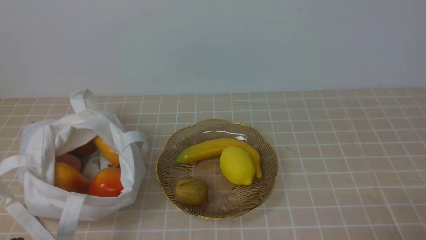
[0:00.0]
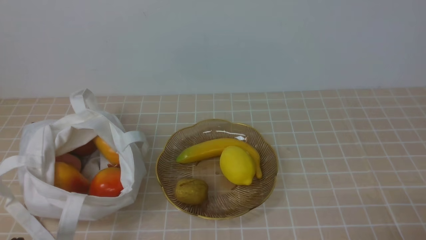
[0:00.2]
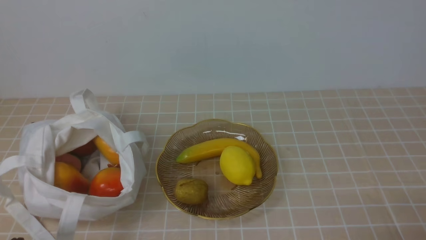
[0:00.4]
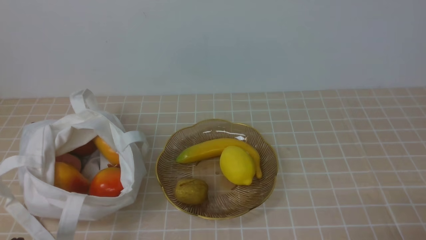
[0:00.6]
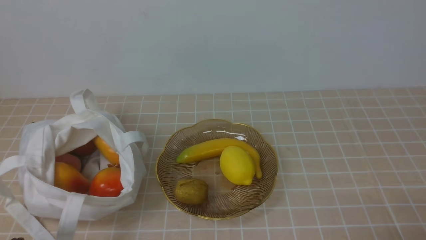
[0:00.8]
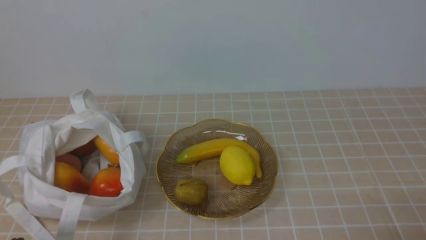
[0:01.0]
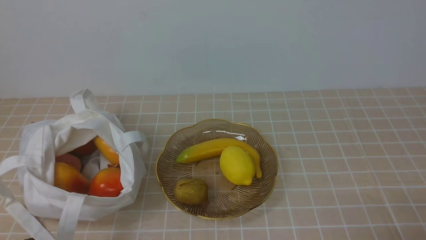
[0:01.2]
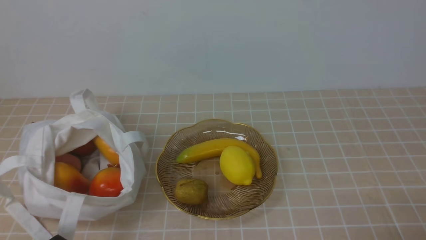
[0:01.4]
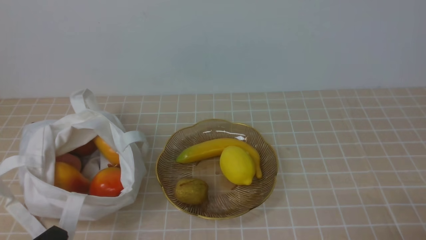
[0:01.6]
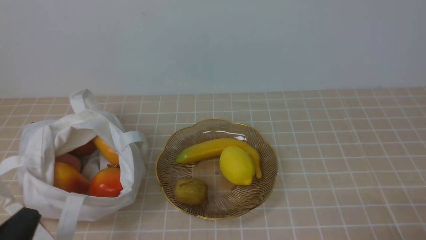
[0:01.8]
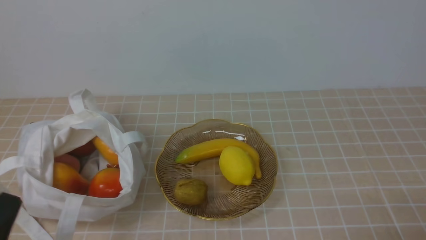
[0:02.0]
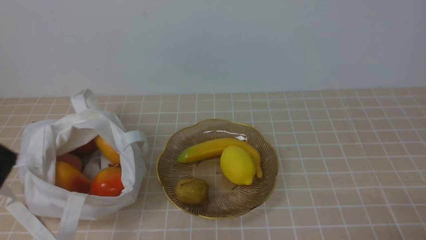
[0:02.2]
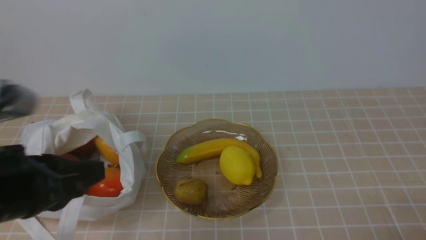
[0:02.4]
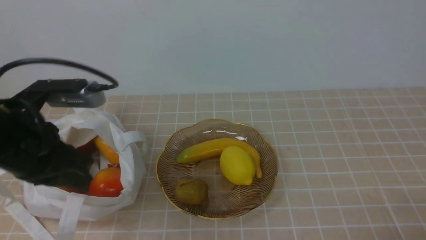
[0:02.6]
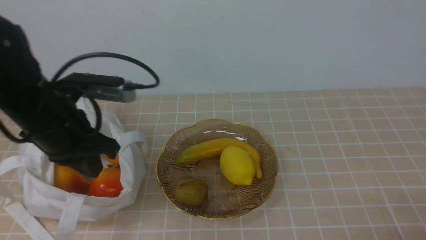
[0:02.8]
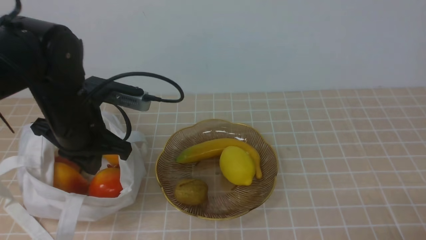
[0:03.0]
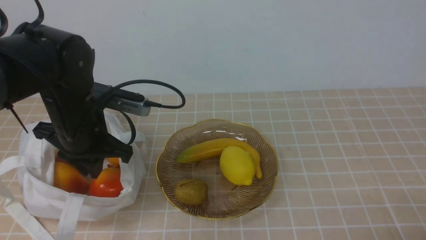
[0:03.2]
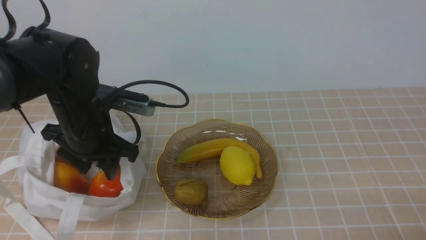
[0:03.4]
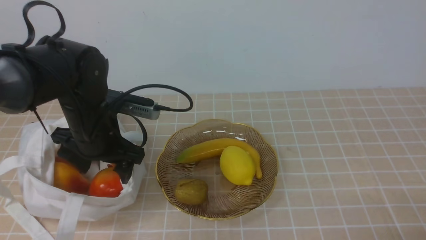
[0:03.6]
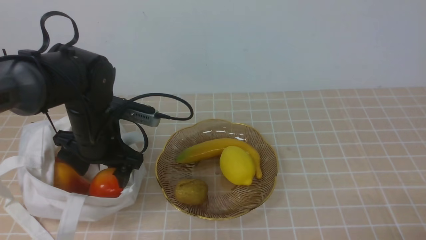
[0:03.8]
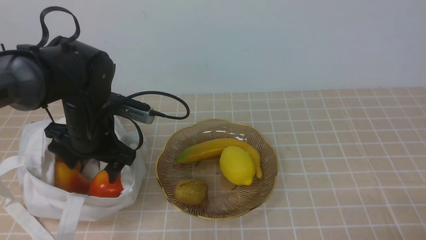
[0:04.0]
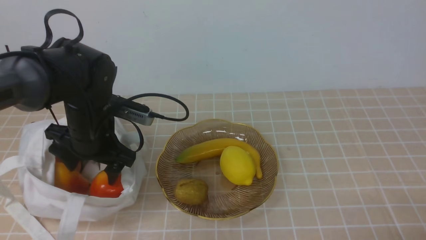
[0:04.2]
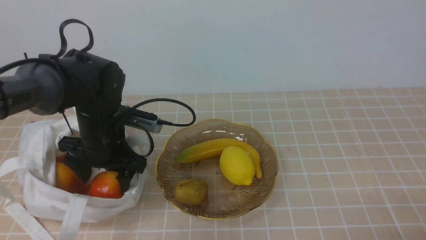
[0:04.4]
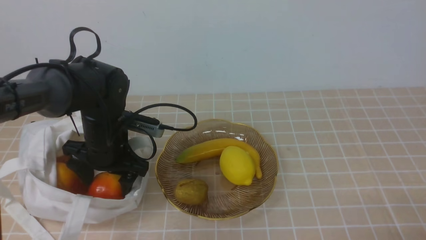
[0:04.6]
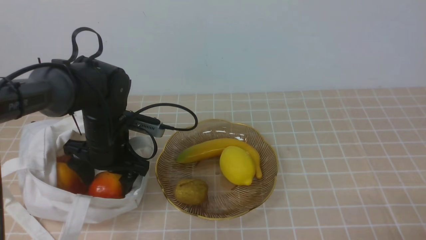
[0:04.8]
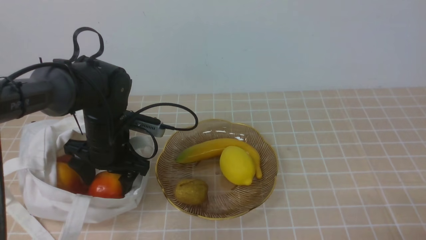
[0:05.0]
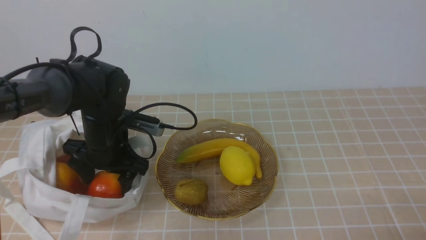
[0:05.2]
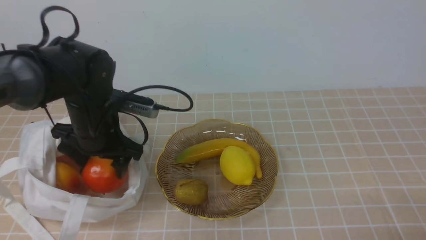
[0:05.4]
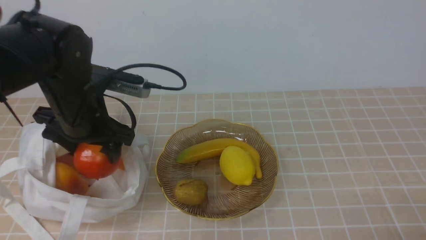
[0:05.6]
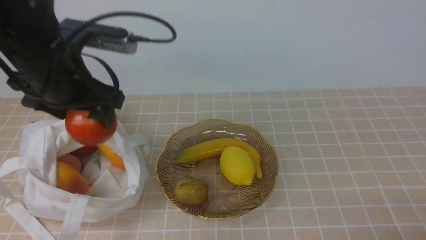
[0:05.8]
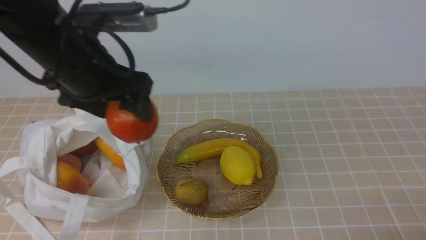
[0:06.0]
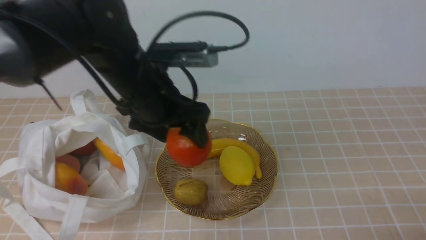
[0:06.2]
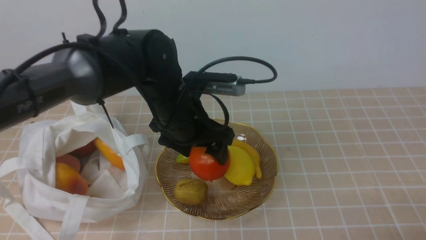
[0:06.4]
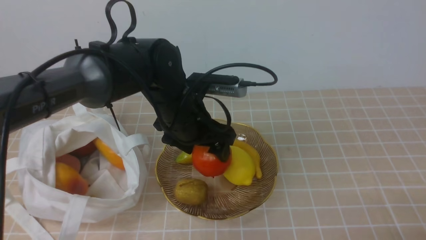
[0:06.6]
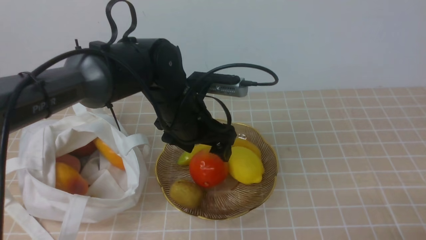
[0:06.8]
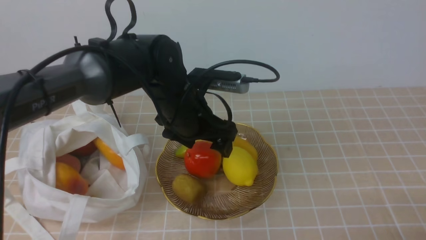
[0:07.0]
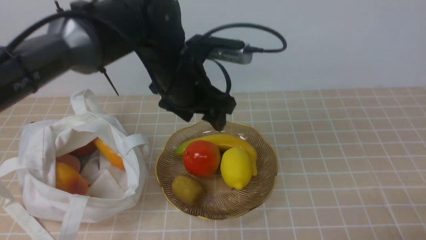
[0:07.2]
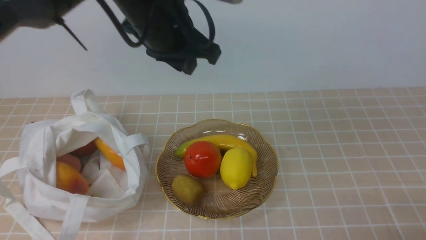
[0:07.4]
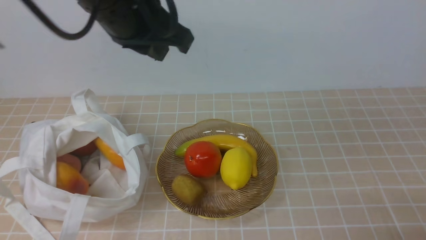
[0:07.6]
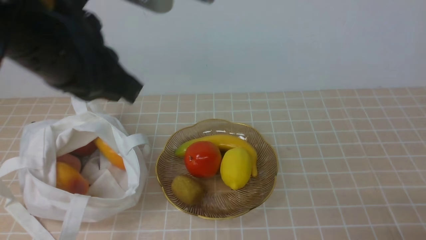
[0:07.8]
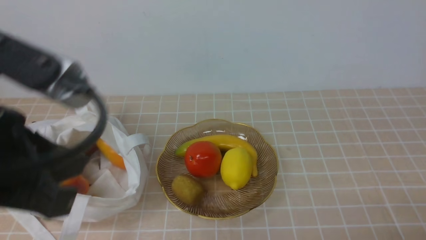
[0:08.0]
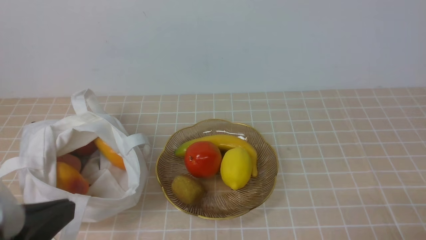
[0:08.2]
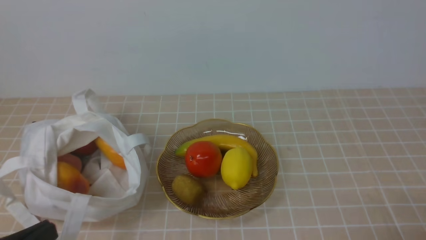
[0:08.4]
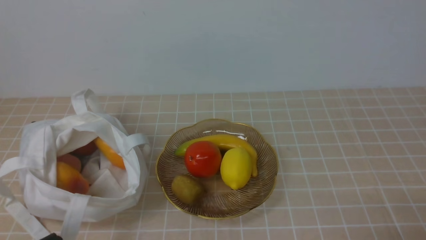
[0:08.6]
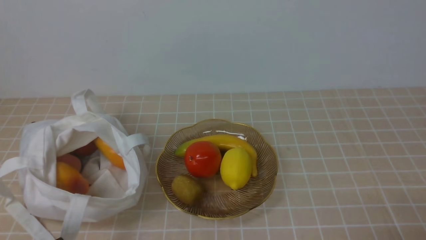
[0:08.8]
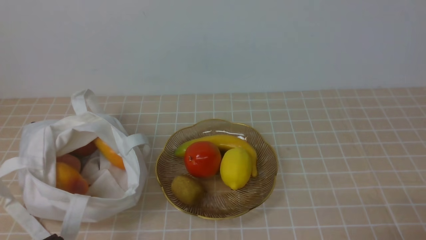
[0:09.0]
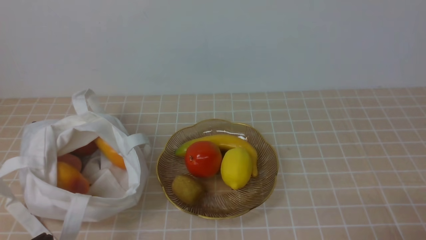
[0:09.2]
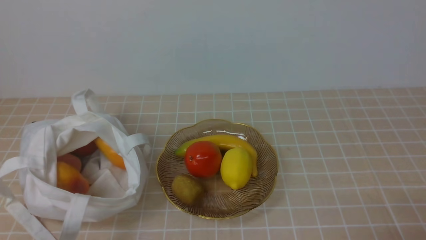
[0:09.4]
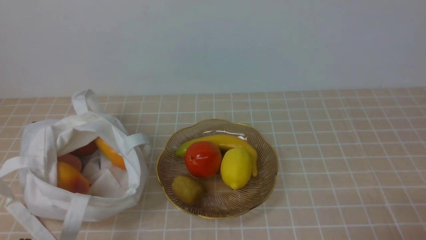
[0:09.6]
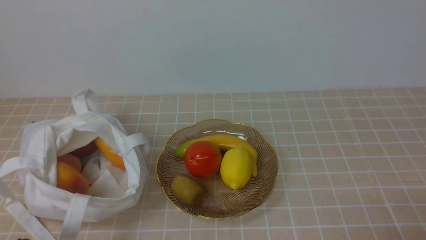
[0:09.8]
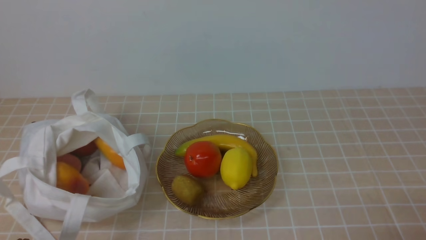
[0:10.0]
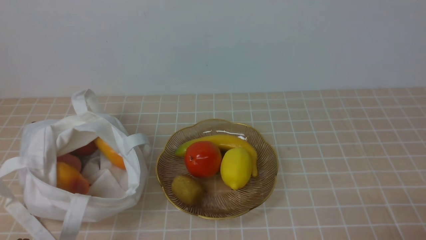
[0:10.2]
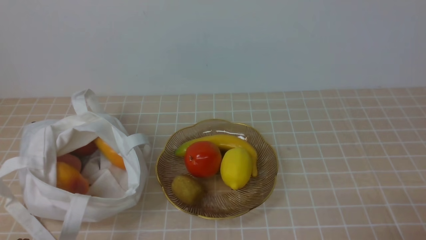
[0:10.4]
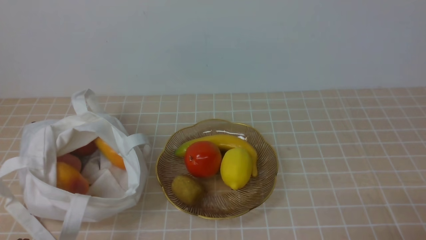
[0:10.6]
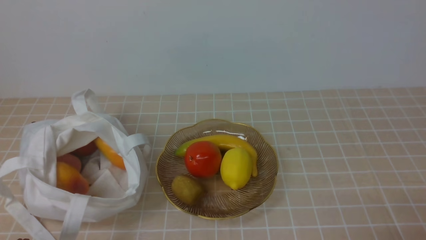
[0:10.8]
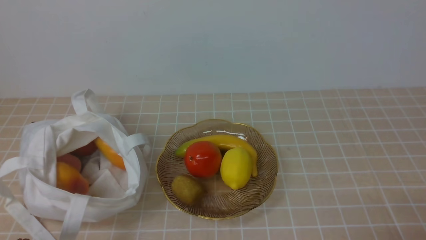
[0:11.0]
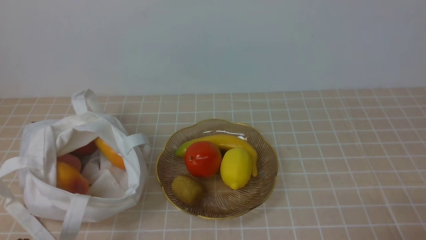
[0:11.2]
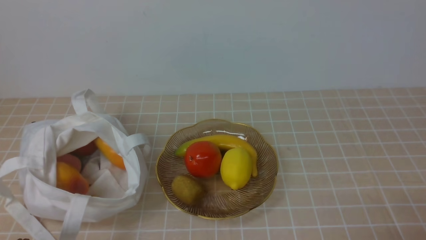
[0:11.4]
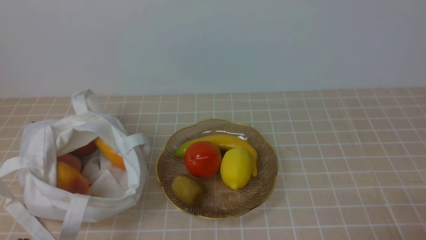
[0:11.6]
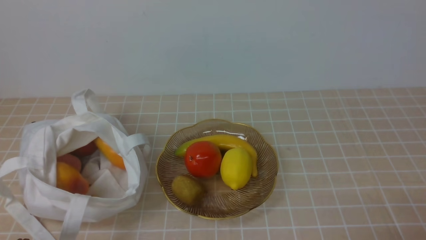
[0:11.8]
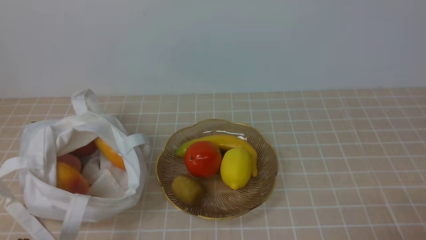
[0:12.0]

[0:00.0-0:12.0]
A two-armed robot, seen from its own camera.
Step, 0:00.0 to 0:05.4: use the left arm to grab an apple from the bag.
Step, 0:05.8 to 0:06.8: use the left arm to put the apple into the empty plate on the right.
0:01.6 to 0:03.0: The left gripper moves forward and upward, about 25 cm.
0:03.0 to 0:04.4: The left gripper moves downward and forward, approximately 10 cm, and opens its fingers.
0:04.4 to 0:06.0: The left gripper goes roughly 15 cm upward.
0:06.0 to 0:07.6: The left gripper moves upward and to the right, about 10 cm, and closes up.
0:07.6 to 0:09.0: The left gripper shifts roughly 35 cm backward, downward and to the left.
0:10.4 to 0:12.0: Both grippers stay about where they are.

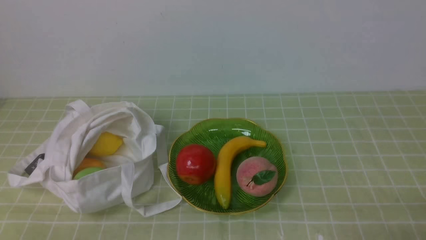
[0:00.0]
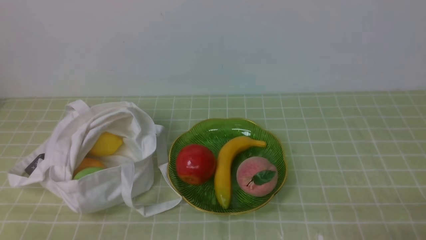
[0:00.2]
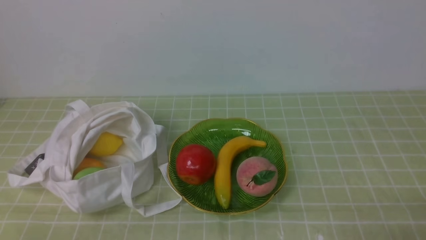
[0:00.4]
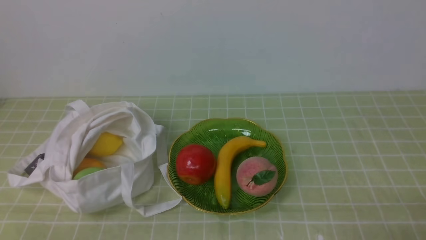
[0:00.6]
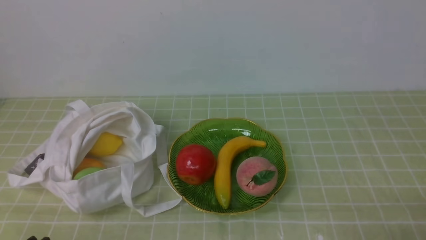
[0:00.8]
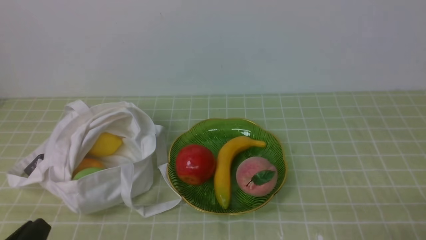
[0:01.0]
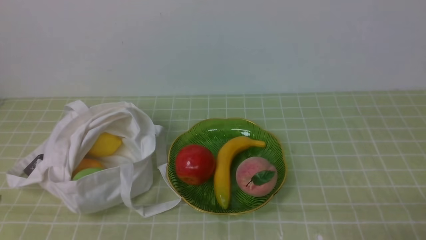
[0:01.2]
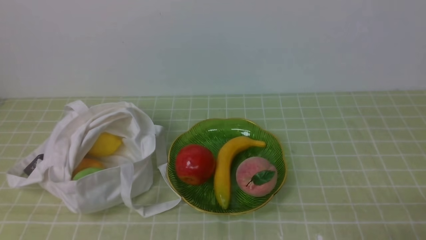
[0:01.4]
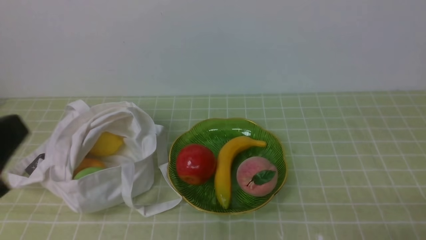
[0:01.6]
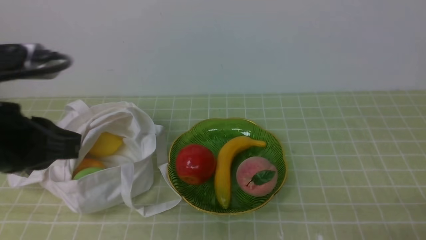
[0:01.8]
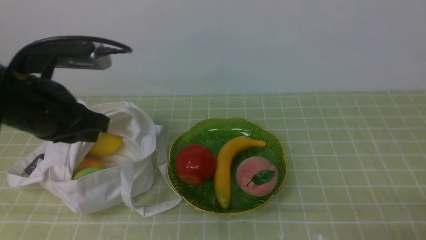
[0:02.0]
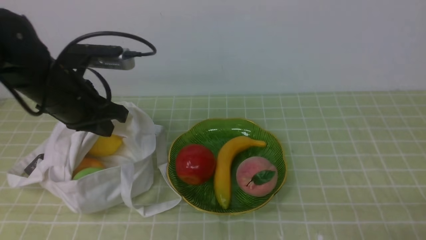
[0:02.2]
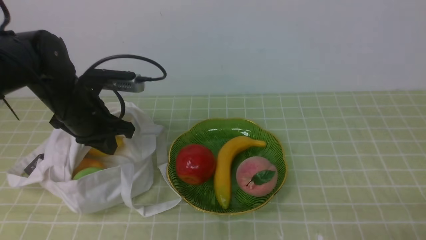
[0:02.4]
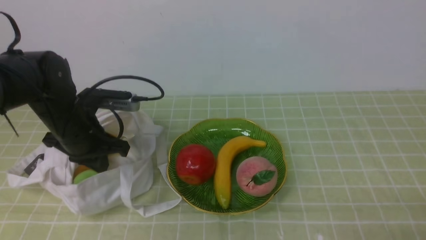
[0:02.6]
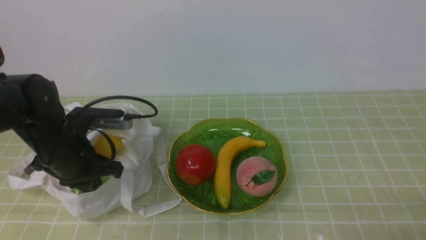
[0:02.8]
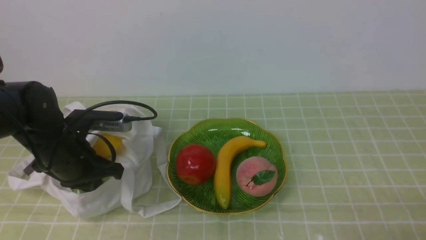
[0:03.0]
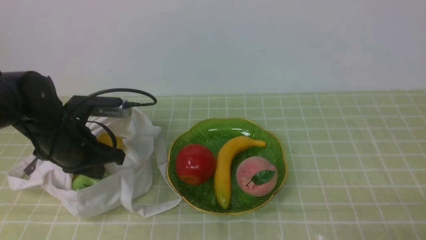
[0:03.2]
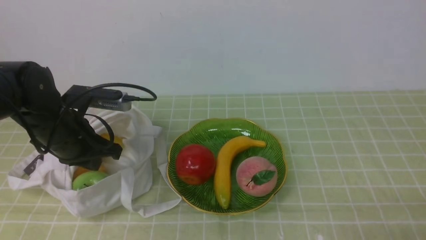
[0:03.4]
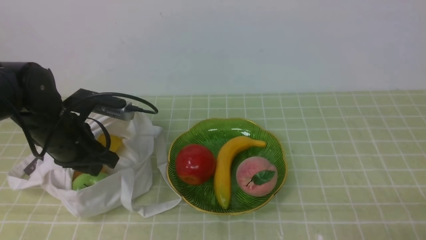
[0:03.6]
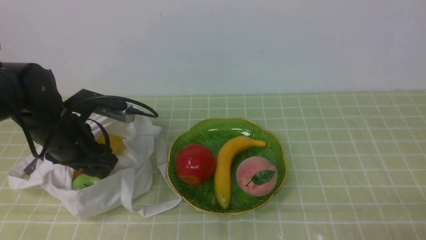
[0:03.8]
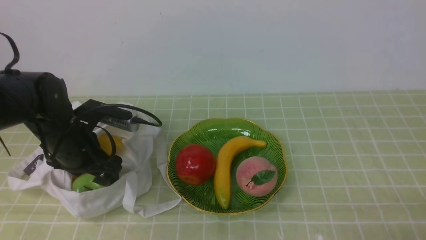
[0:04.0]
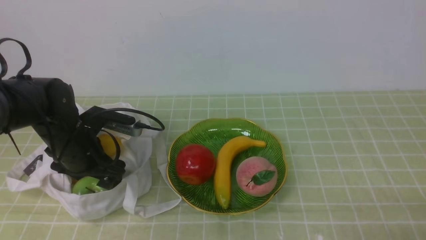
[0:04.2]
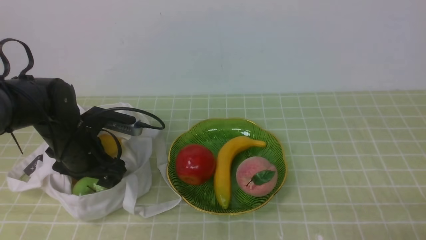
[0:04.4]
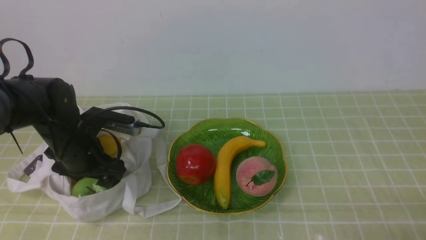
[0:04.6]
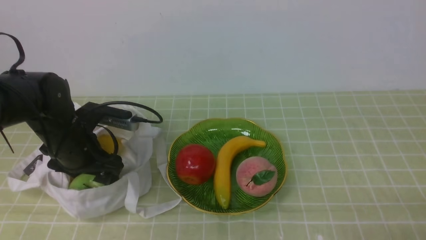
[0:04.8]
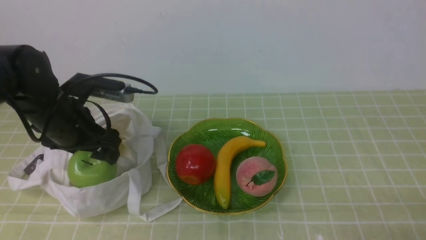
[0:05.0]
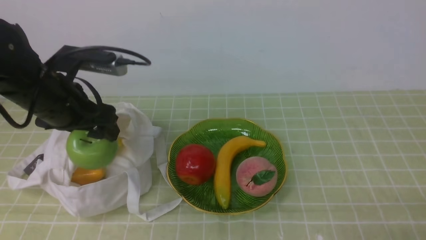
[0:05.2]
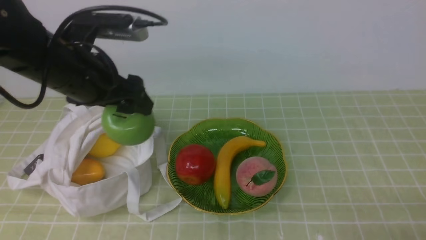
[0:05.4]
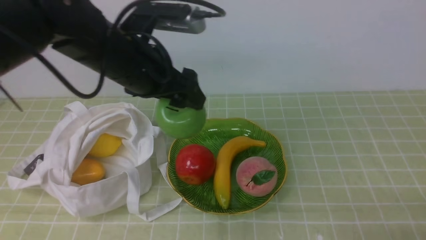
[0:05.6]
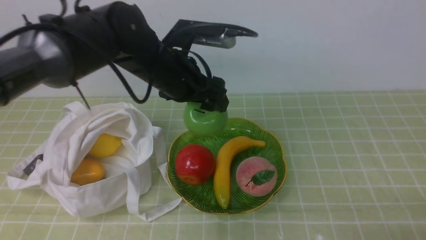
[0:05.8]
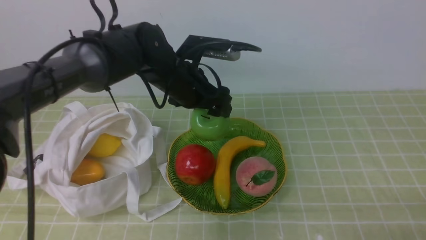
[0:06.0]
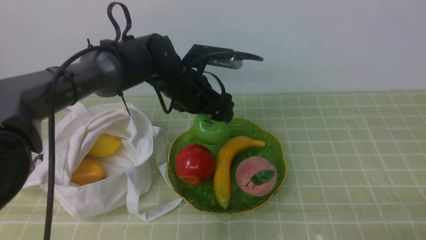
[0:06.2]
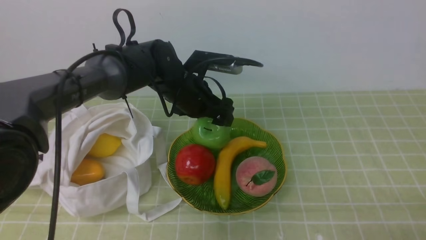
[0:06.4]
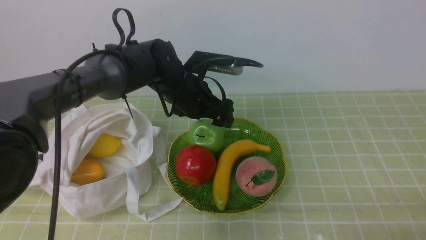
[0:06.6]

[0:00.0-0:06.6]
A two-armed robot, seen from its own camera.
Step, 0:00.0 to 0:05.0: use the left arm to grab an apple from the bag.
0:01.6 to 0:03.2: The left gripper shifts approximately 25 cm forward and downward.
0:03.2 to 0:05.0: The left gripper opens up.
0:05.0 to 0:06.6: The left gripper goes some 20 cm to the right and forward.
